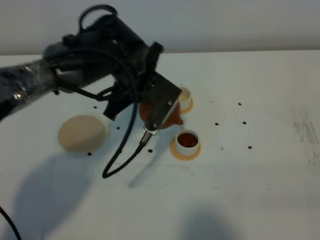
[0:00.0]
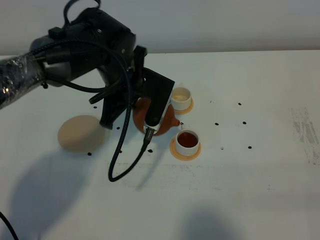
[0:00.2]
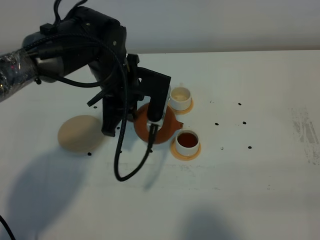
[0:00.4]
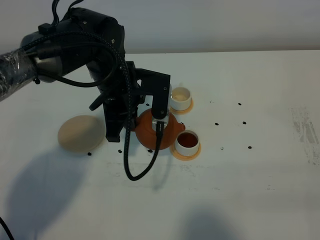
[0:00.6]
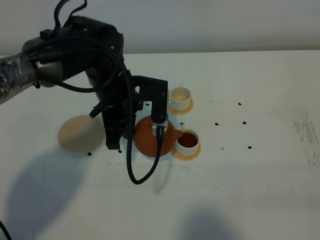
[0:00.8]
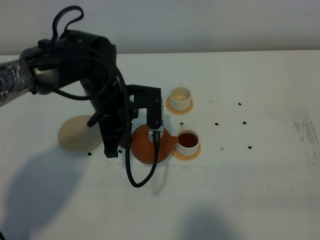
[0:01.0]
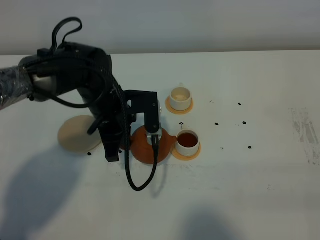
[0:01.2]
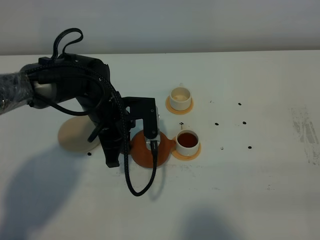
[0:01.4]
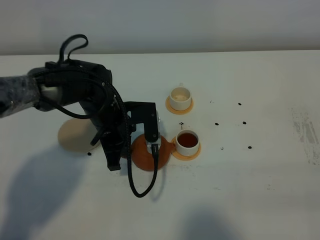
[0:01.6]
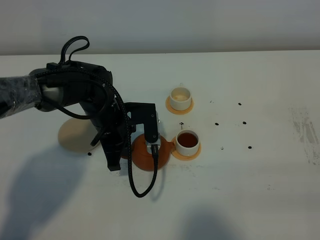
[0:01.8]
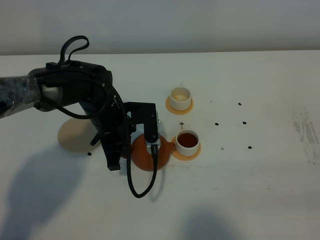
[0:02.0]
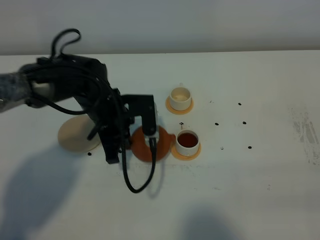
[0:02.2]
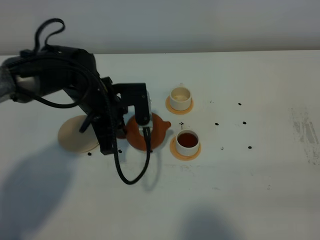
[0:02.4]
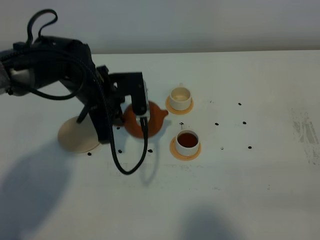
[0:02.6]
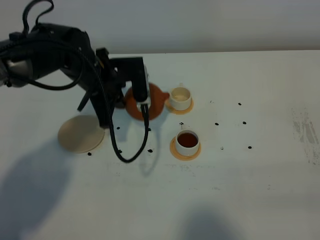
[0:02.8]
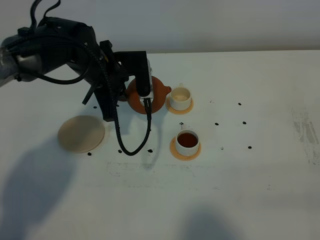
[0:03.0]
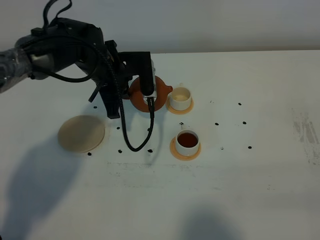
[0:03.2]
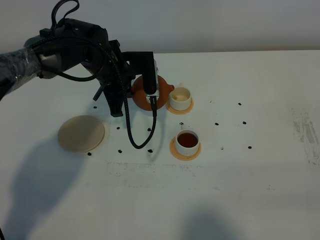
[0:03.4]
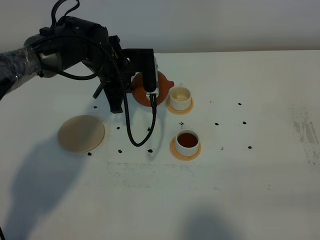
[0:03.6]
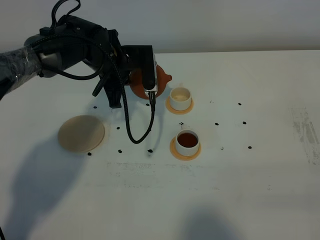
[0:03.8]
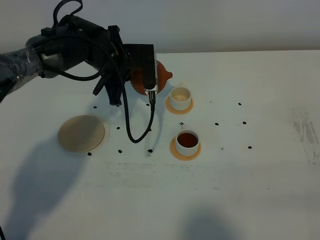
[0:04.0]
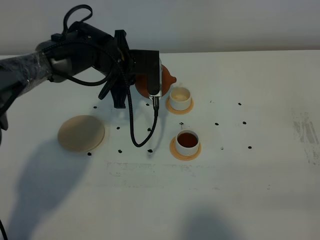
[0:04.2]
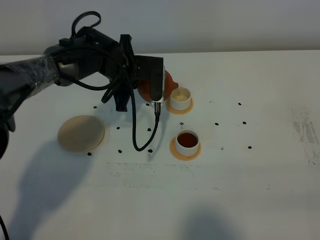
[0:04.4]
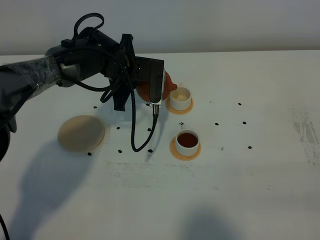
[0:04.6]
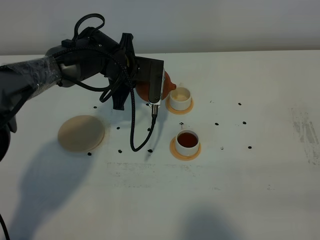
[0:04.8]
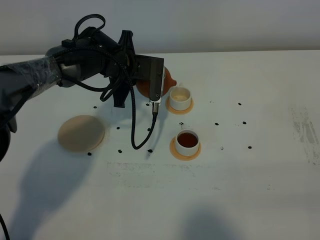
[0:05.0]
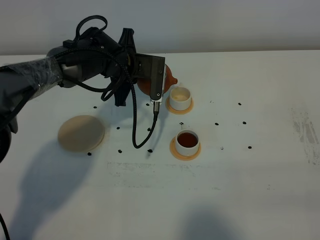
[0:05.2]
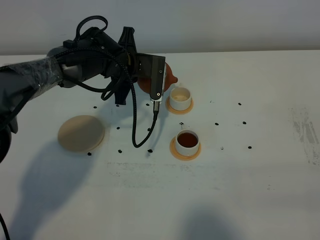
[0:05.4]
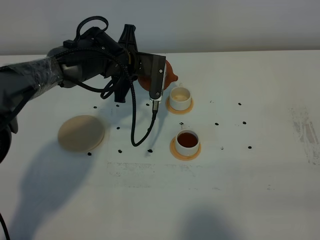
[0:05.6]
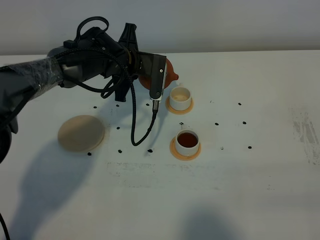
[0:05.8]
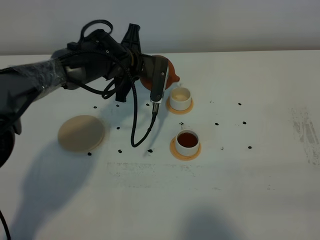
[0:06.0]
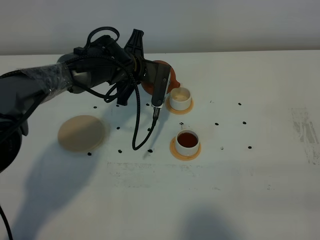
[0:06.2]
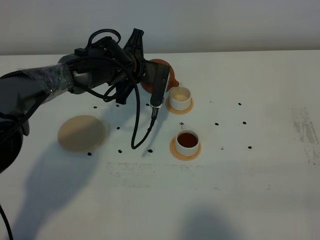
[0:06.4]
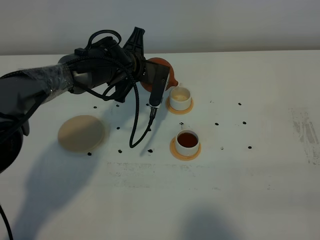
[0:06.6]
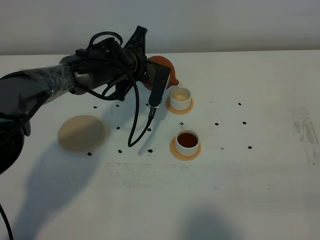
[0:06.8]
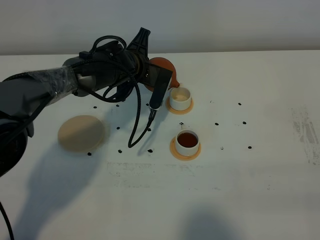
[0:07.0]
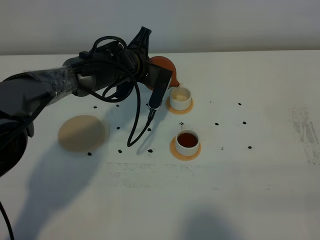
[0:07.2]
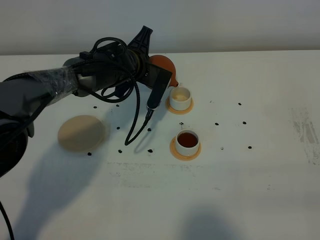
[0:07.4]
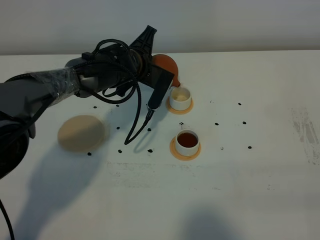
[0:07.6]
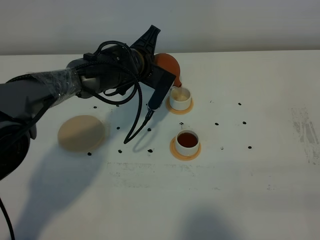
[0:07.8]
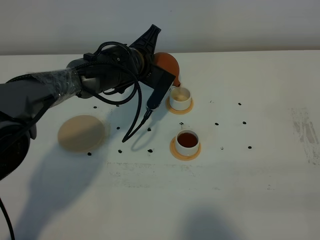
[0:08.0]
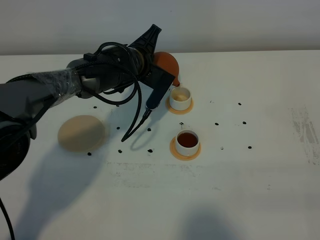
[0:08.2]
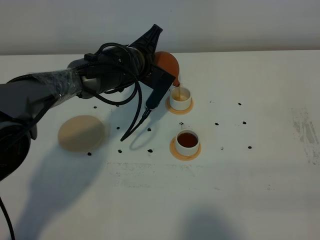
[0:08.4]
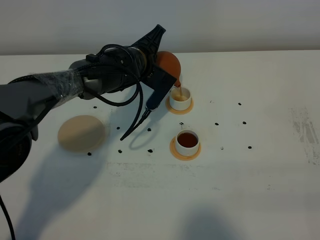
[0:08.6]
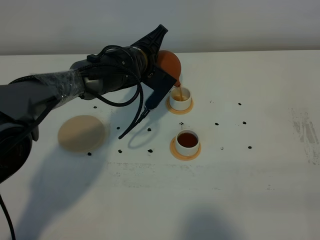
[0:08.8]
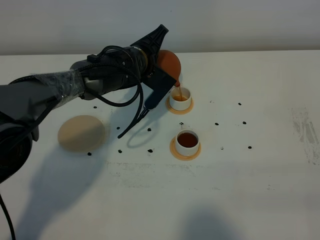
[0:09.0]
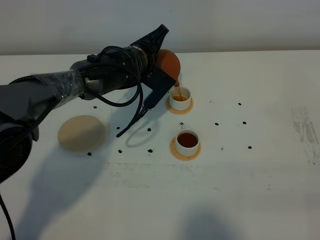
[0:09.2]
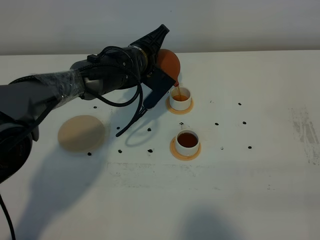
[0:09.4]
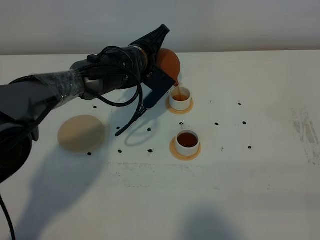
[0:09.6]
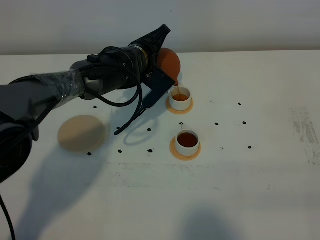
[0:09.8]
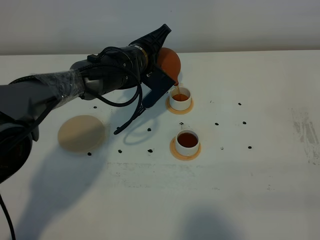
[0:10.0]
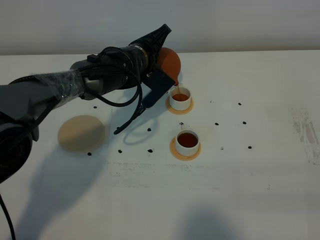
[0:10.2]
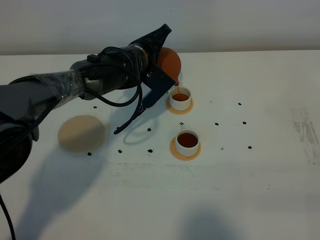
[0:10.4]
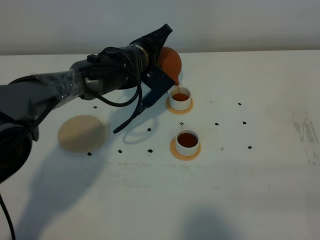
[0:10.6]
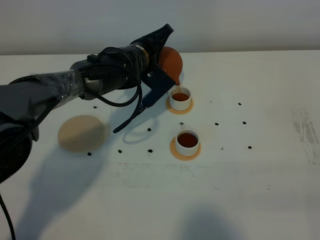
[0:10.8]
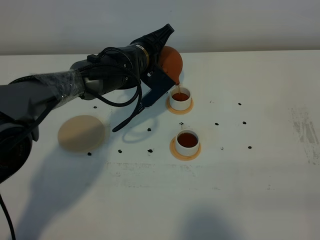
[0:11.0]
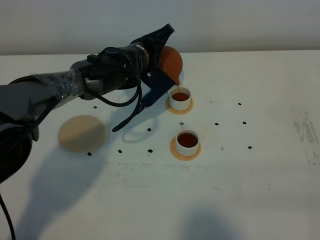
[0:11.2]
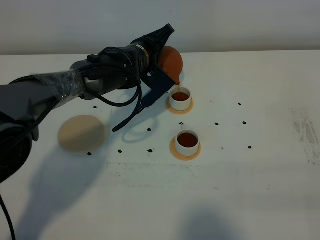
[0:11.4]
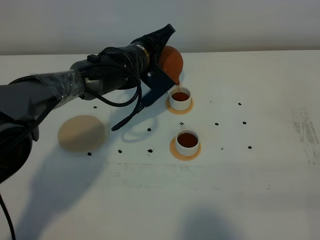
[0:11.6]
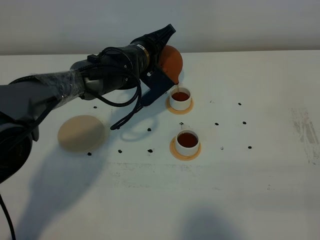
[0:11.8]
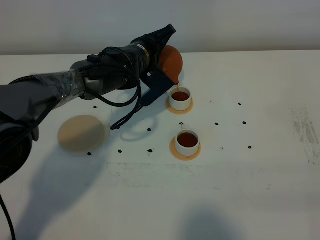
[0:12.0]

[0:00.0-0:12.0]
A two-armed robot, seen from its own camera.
Task of the whole recording: grasp the brown teapot and pour the tea into the two white teacups one by one, put the brown teapot back in its original place.
0:00.0 to 0:01.6: The left gripper is displaced downward and to the left by approximately 10 cm.
0:01.6 to 0:03.0: The left gripper moves upward and forward, roughly 10 cm.
0:03.0 to 0:04.4: The left gripper moves roughly 5 cm.
0:04.4 to 0:06.0: The grippers make only small movements.
0:06.0 to 0:07.6: The grippers stay close to where they were, moving slightly.
0:07.6 to 0:10.4: The grippers move only a little.
0:10.4 to 0:12.0: The grippers make only small movements.

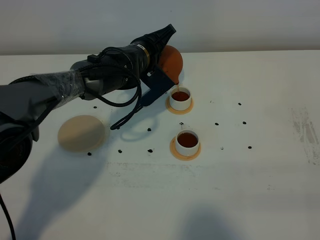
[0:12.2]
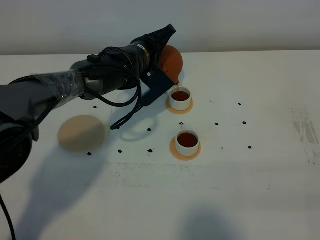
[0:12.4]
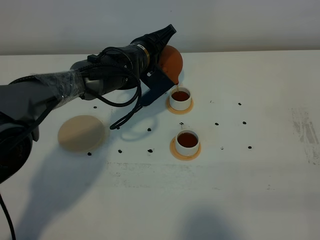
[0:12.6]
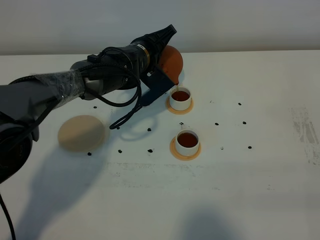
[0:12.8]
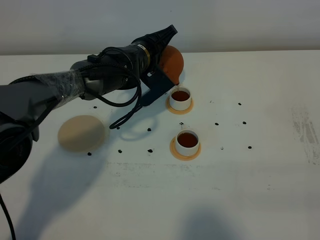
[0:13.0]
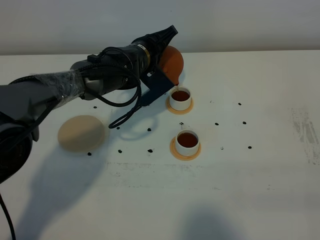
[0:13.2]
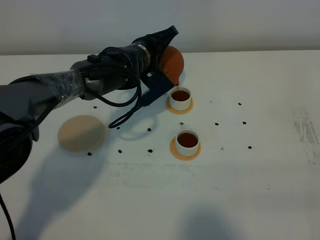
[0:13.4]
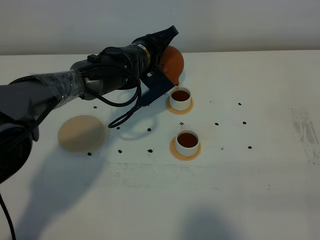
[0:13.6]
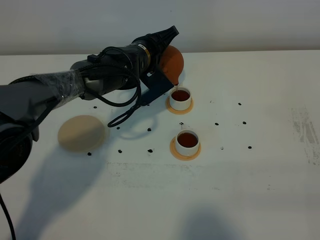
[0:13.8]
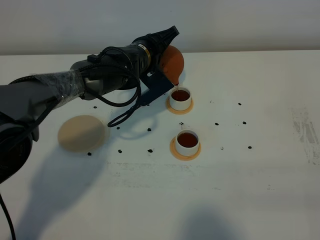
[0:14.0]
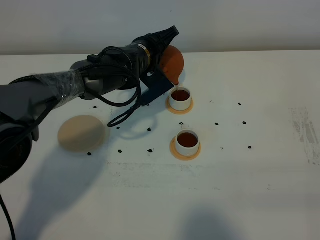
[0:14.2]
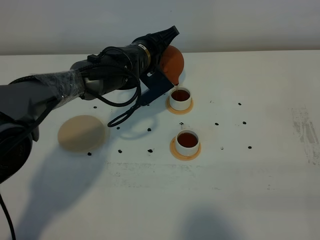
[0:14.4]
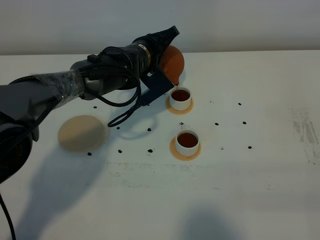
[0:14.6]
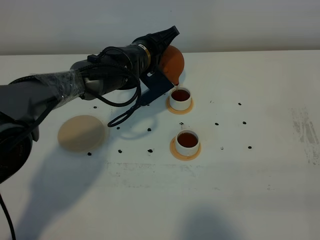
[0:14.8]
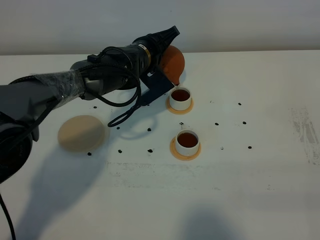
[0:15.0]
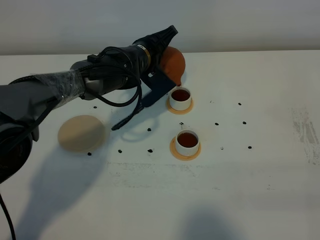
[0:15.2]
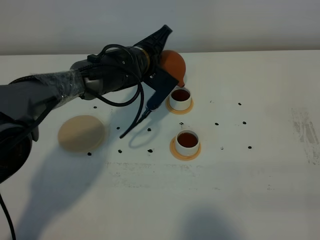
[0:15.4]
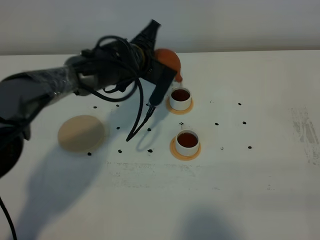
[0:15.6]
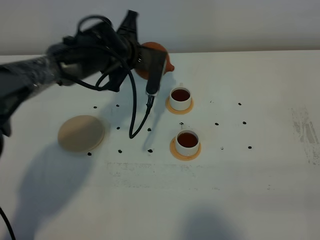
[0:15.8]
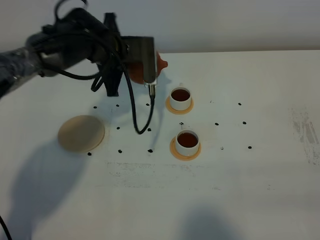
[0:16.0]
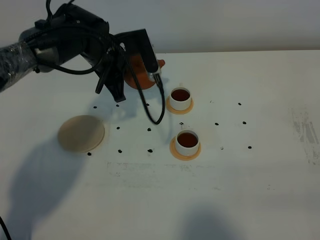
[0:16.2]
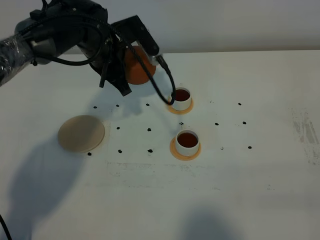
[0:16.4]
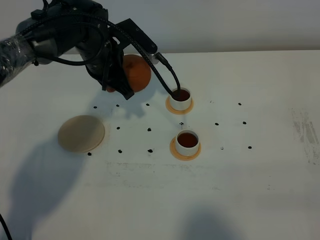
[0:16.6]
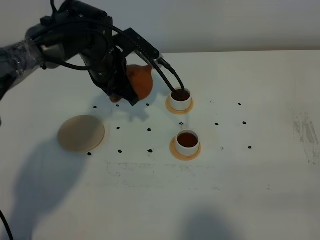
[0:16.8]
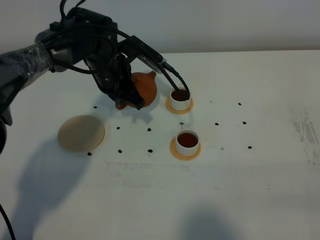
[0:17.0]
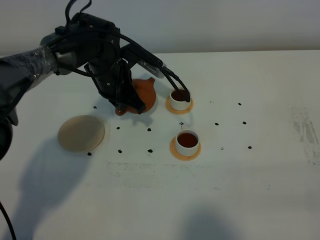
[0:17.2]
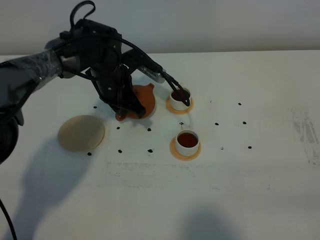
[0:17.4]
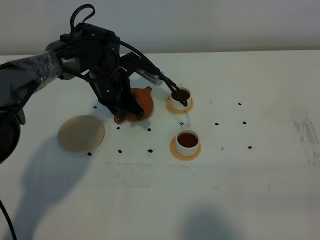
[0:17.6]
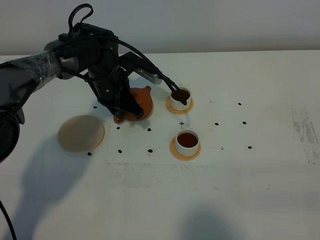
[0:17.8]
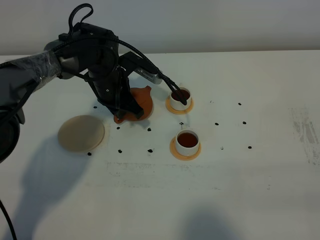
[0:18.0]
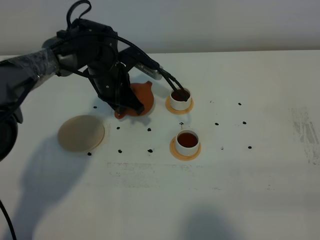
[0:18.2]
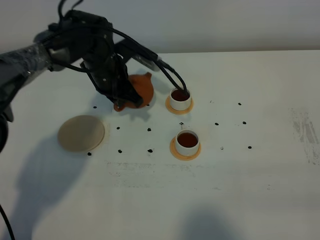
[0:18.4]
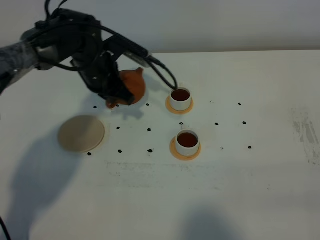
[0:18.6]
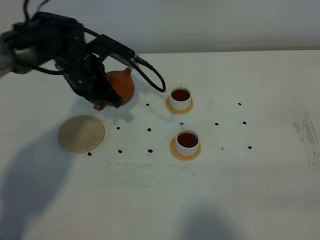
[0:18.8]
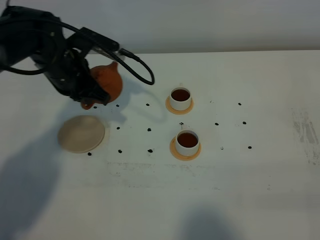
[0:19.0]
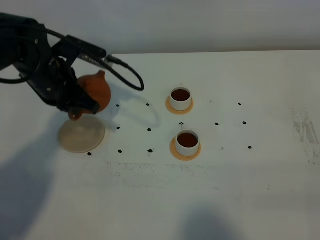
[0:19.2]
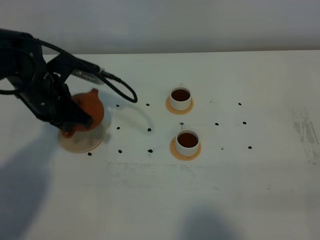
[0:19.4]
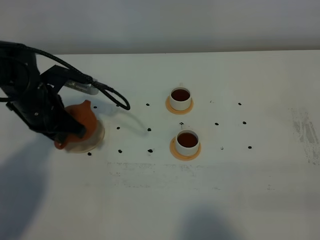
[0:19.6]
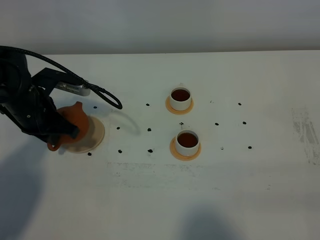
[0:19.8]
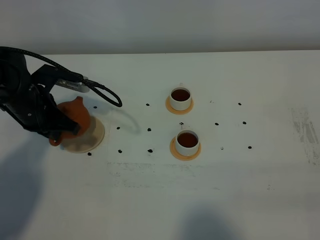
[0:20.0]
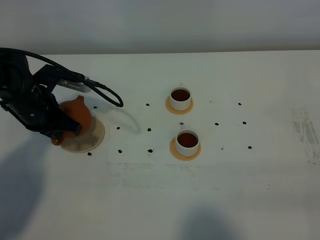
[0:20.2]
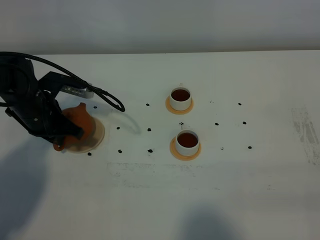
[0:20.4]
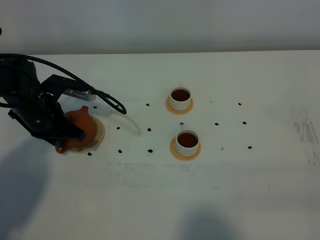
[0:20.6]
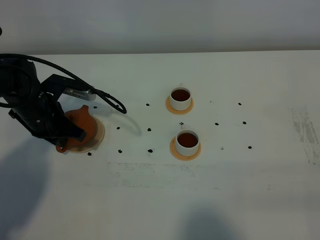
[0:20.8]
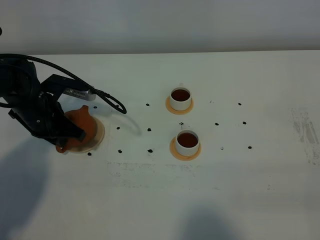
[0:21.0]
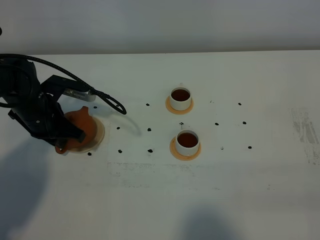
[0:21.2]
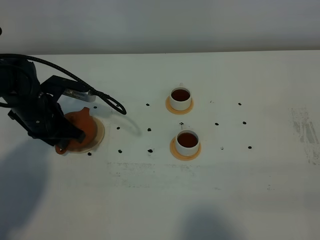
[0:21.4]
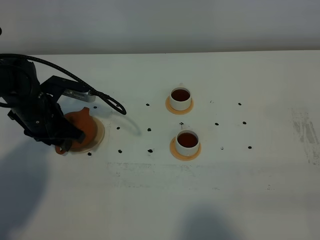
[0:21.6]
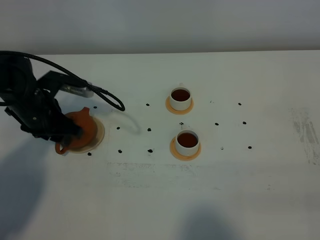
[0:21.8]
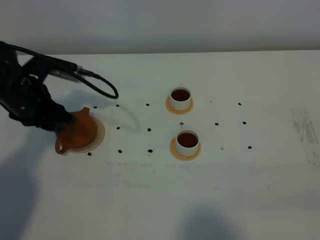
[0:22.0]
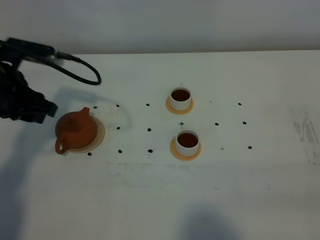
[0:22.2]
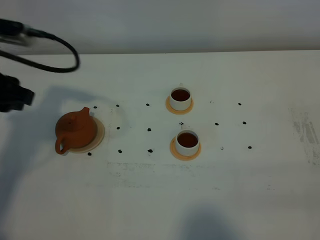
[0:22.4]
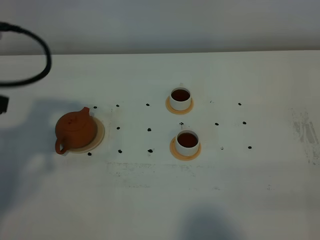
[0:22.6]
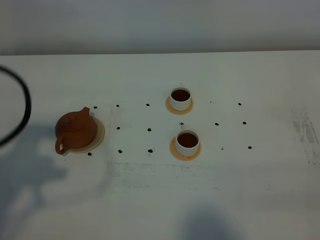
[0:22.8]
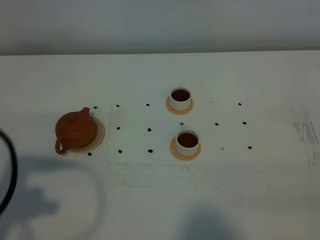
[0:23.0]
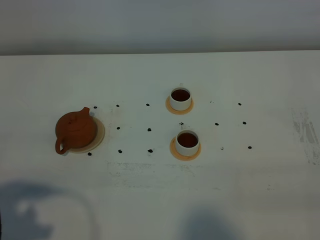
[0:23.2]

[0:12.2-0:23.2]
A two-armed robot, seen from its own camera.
Task of the whole recording: grasp the brown teapot and pour the tea into the two white teacups one by one, put the brown teapot back in its original place.
Step, 0:12.2 to 0:16.2: Pour tea into the teacup with the left gripper.
0:12.2 to 0:13.8: Neither gripper changes place.
0:13.8 to 0:15.4: The grippers make only small movements.
0:15.4 to 0:17.0: The left gripper moves to the left, some 5 cm.
0:17.0 to 0:18.4: There are only small adjustments of the grippers.
0:18.4 to 0:20.0: The left gripper shifts roughly 15 cm to the left and backward.
0:20.0 to 0:21.6: The left gripper opens.
0:21.6 to 0:23.2: The left gripper is displaced backward and upward by some 30 cm.
